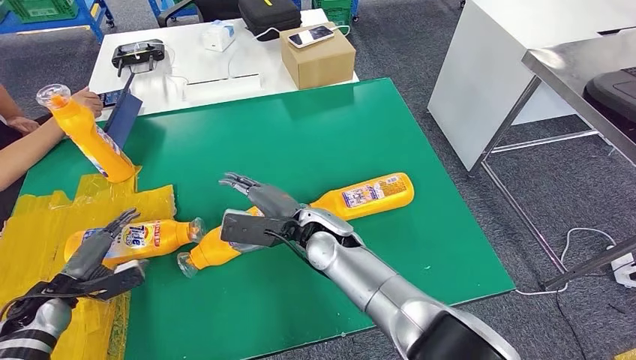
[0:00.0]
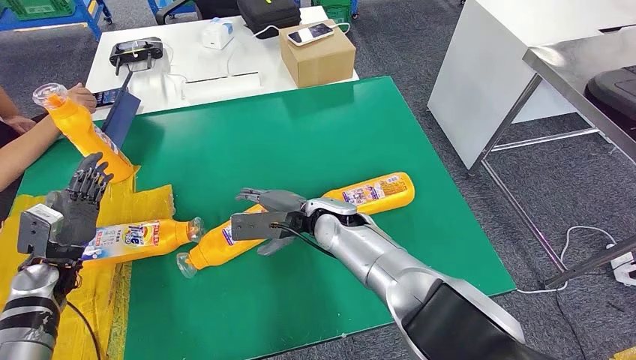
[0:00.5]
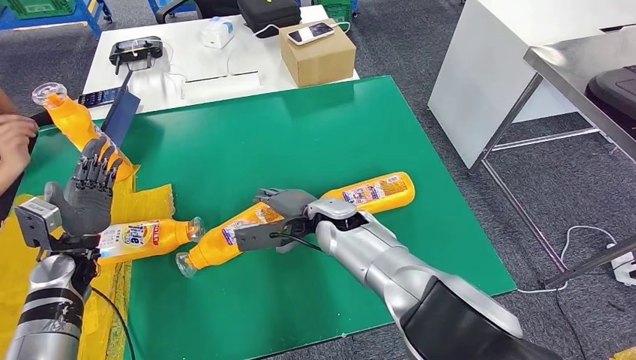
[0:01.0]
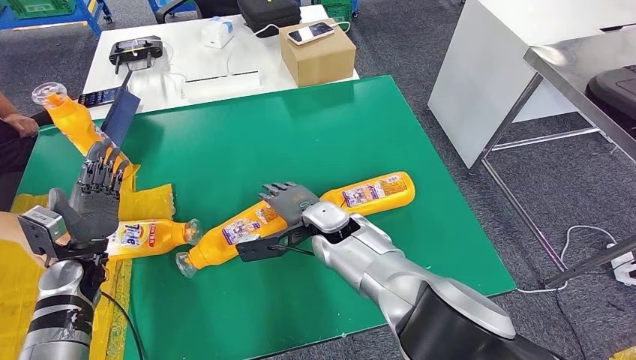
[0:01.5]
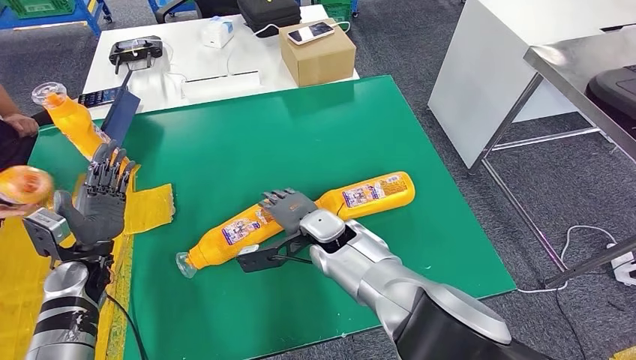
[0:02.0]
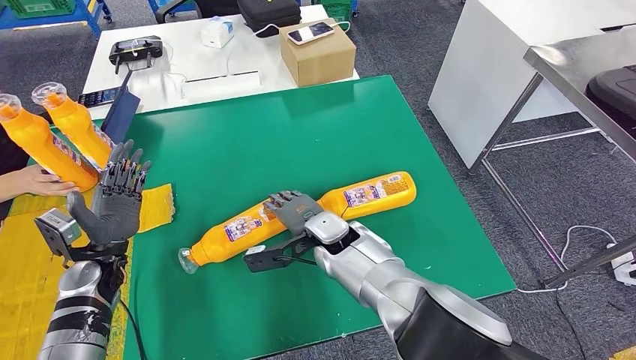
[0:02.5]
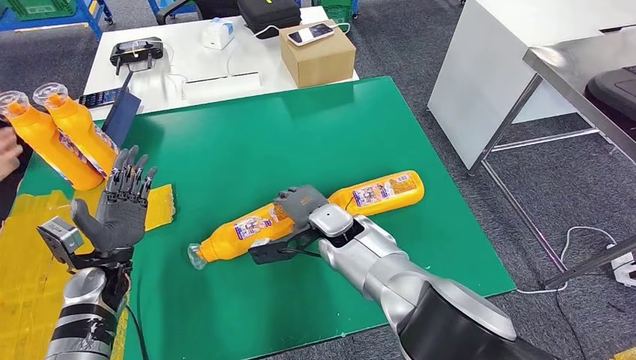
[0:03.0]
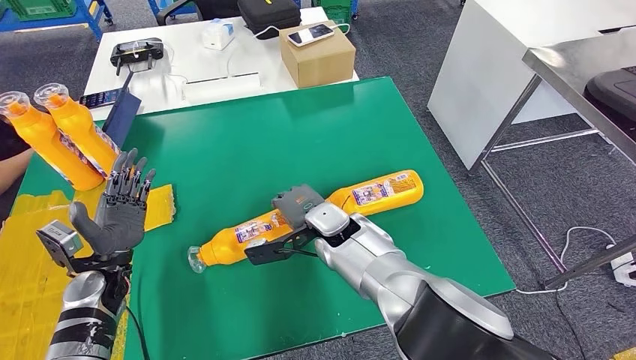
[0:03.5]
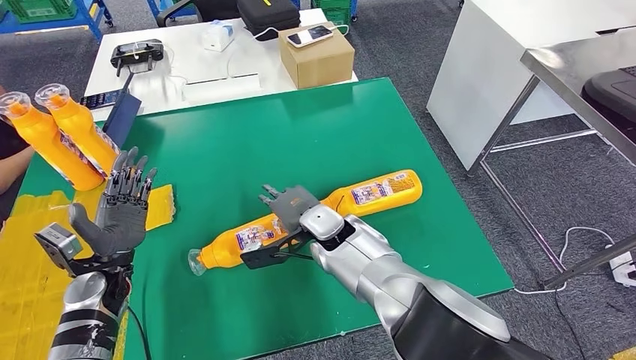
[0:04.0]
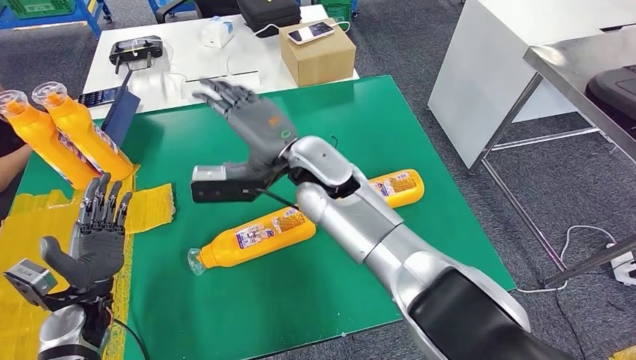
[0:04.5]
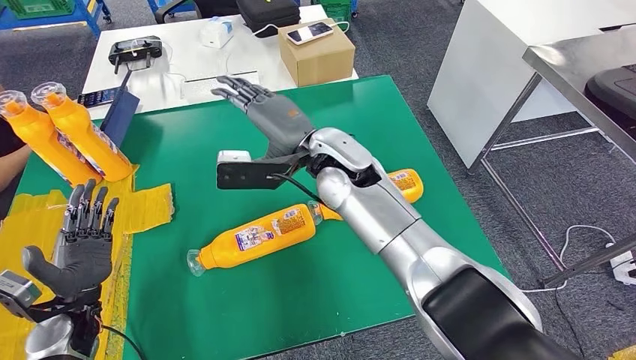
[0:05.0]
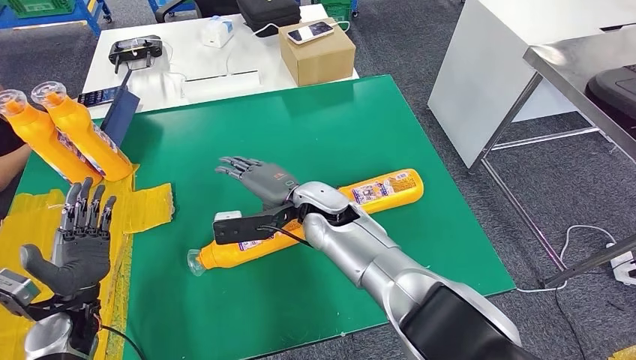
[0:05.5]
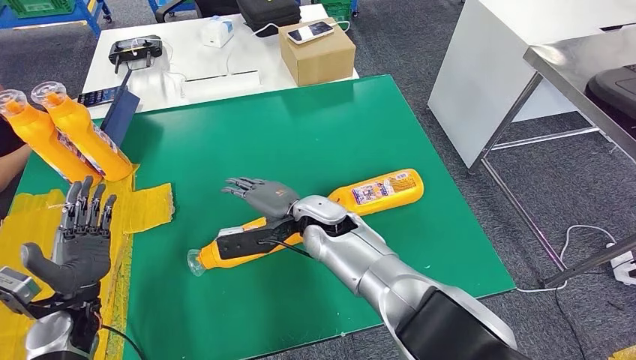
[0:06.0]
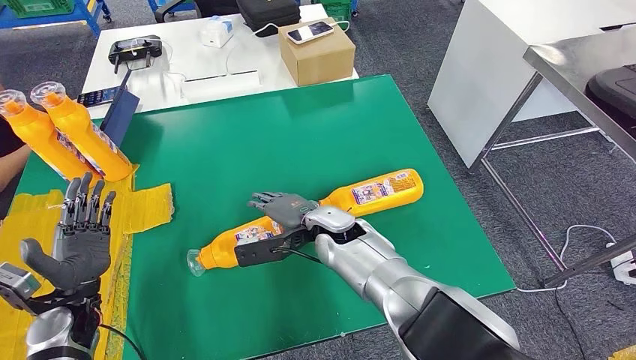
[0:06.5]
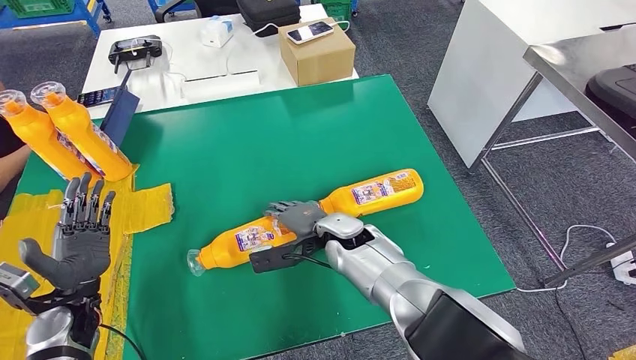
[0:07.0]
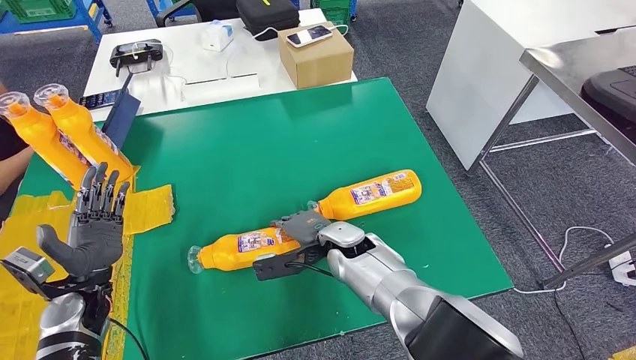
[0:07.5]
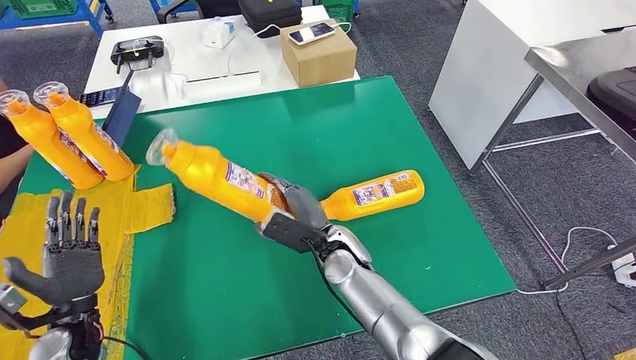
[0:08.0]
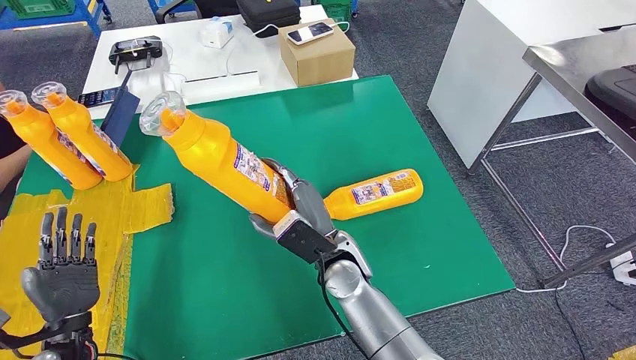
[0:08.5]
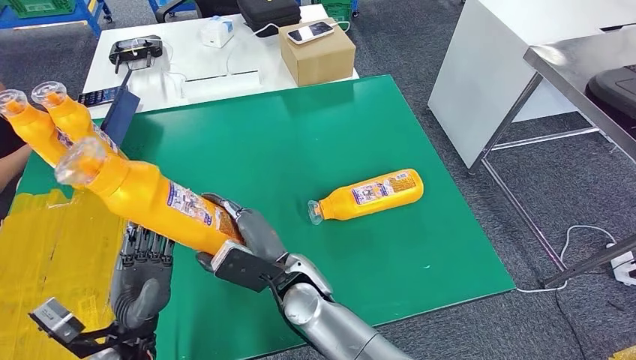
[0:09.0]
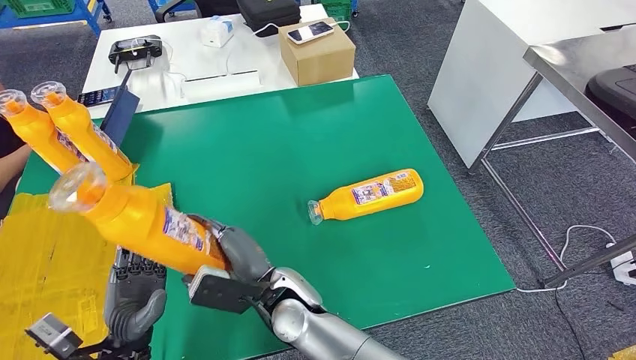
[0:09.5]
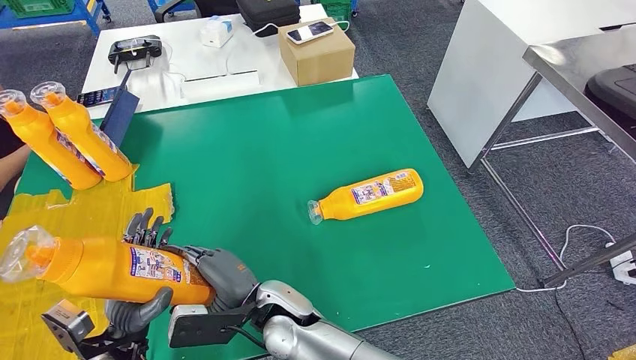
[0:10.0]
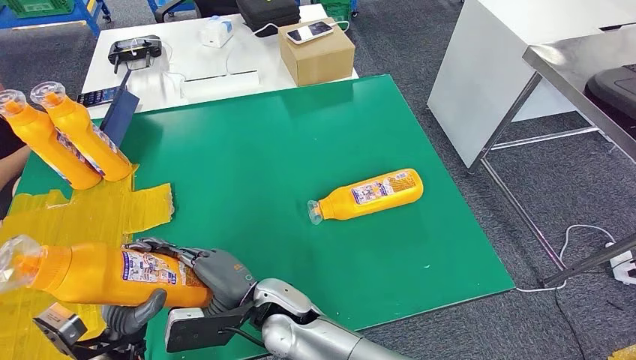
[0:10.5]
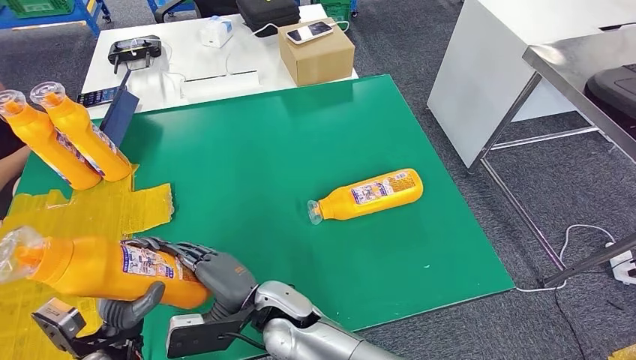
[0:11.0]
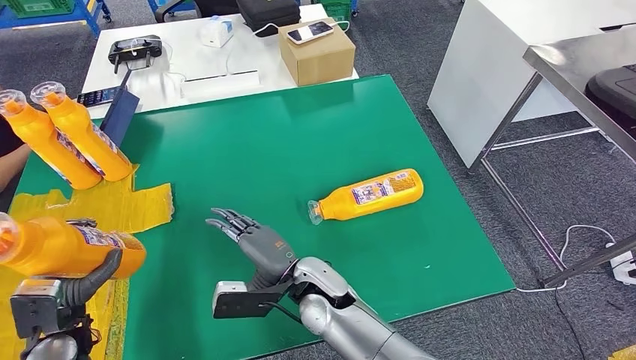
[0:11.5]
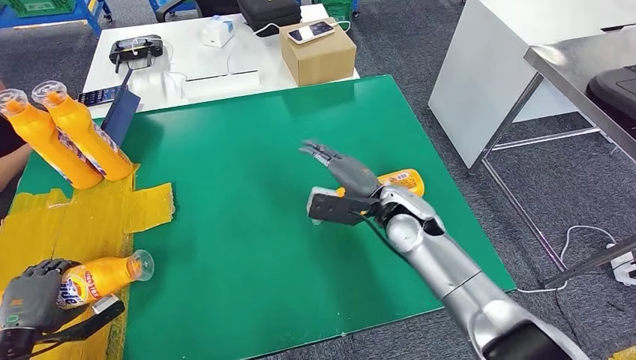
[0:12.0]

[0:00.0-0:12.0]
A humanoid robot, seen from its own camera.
Step, 0:06.0 to 0:10.5: Pick up the fast-moving consumer goods bottle from the table.

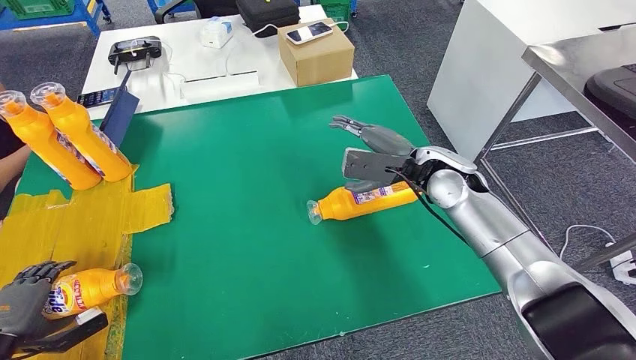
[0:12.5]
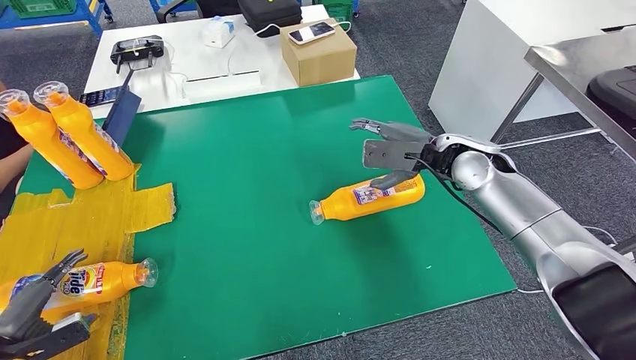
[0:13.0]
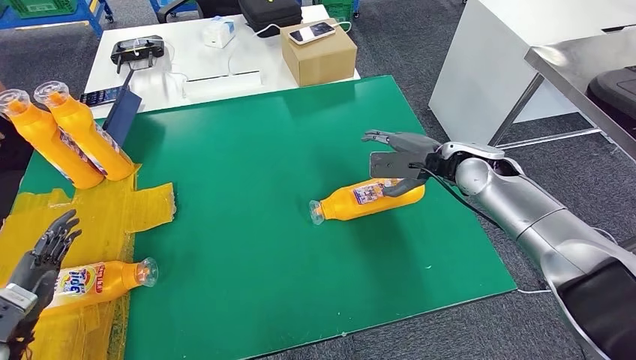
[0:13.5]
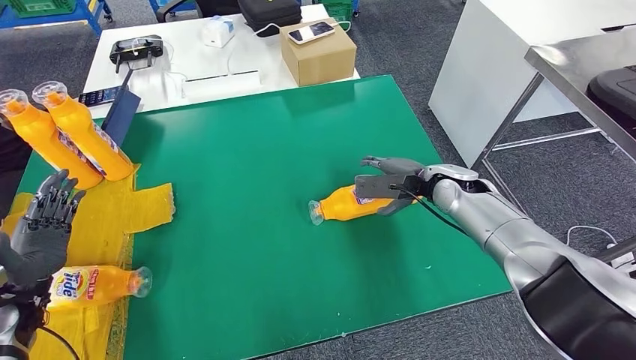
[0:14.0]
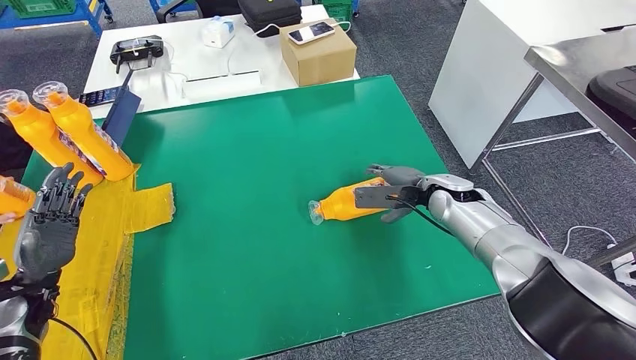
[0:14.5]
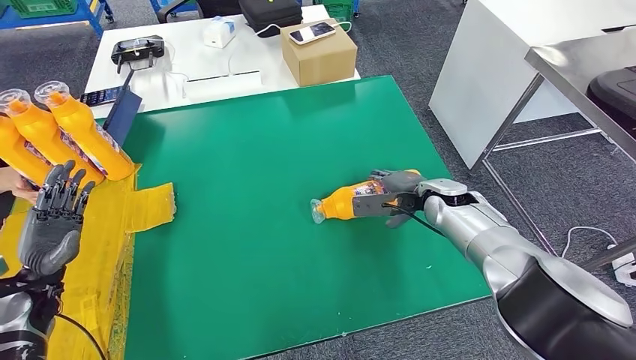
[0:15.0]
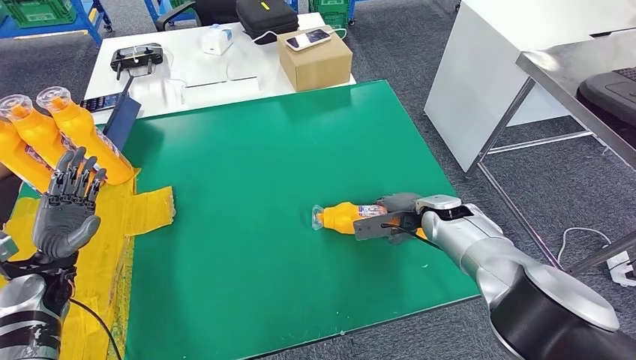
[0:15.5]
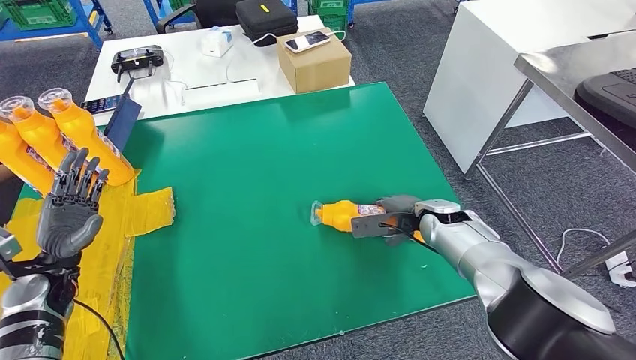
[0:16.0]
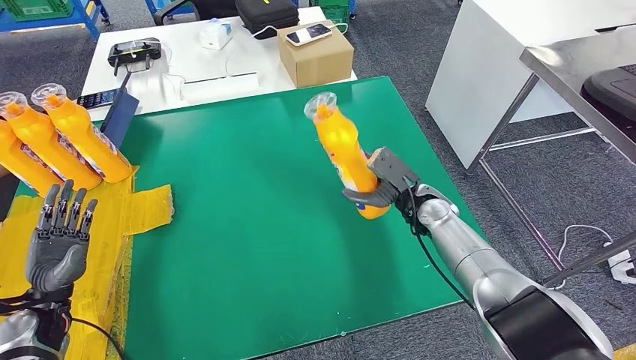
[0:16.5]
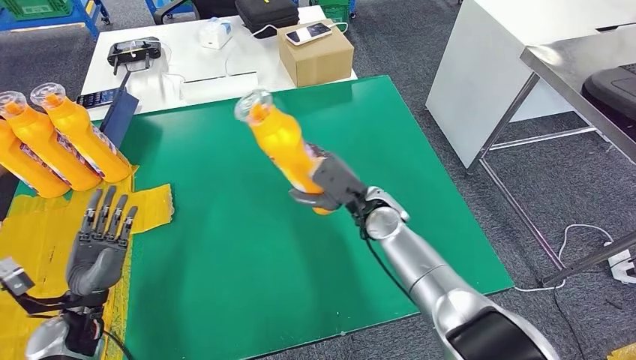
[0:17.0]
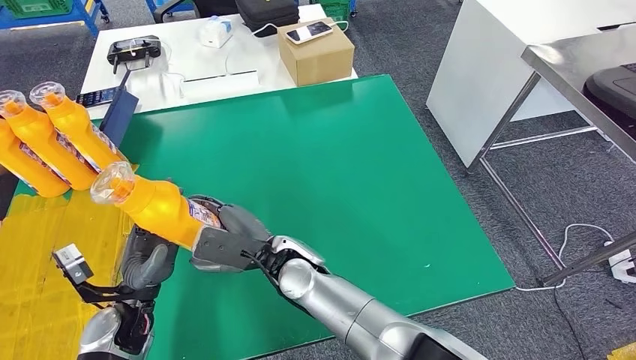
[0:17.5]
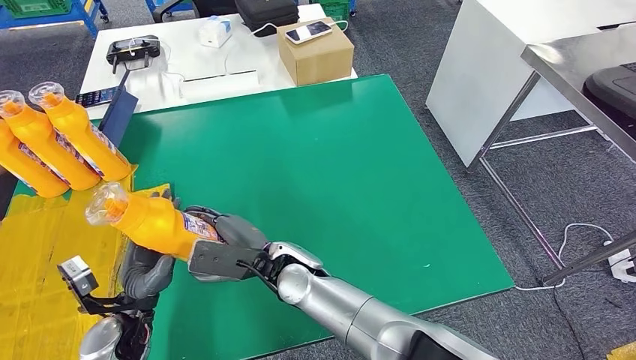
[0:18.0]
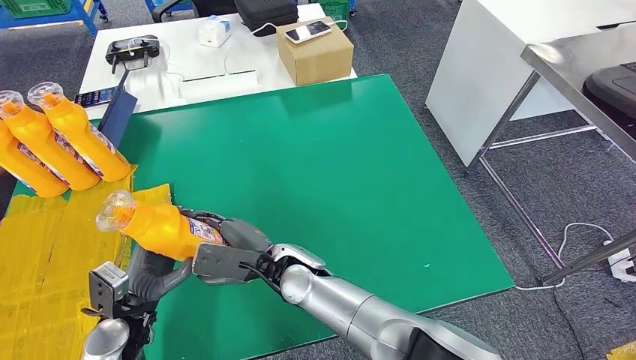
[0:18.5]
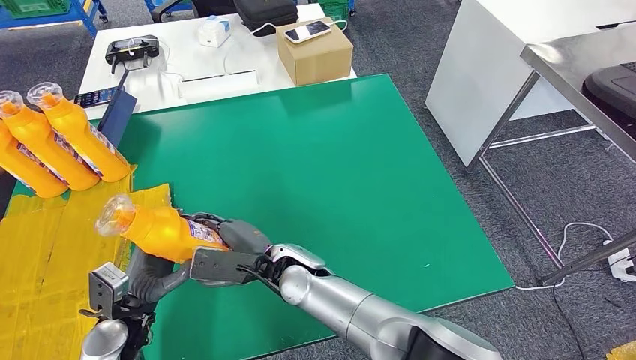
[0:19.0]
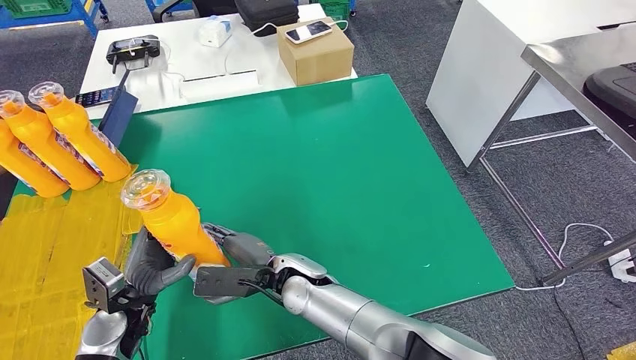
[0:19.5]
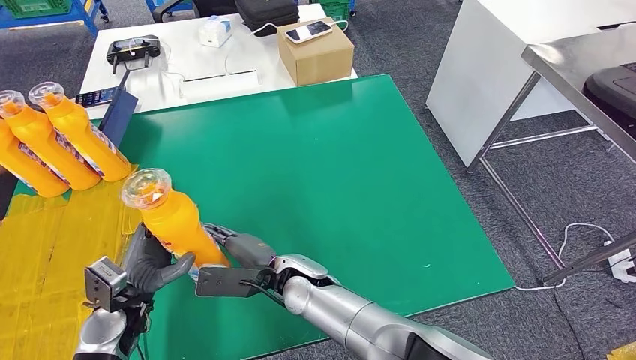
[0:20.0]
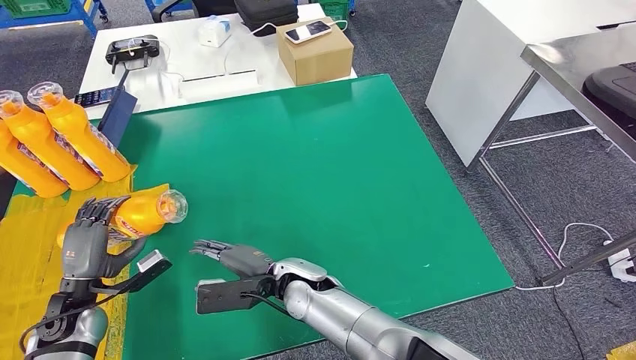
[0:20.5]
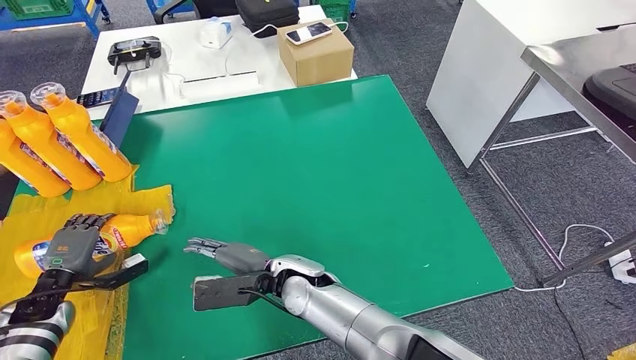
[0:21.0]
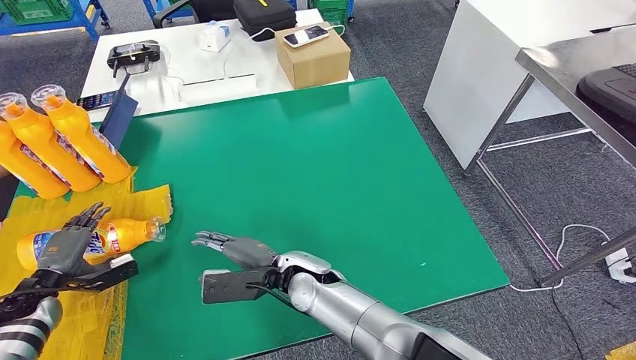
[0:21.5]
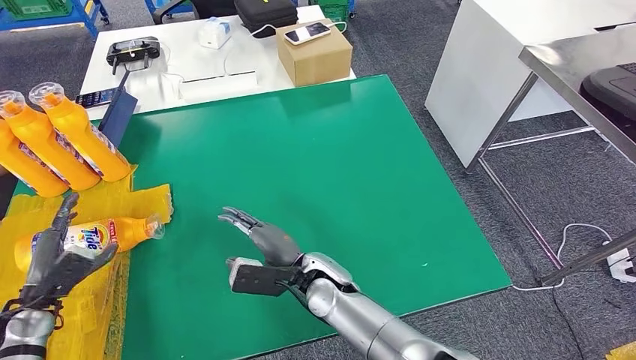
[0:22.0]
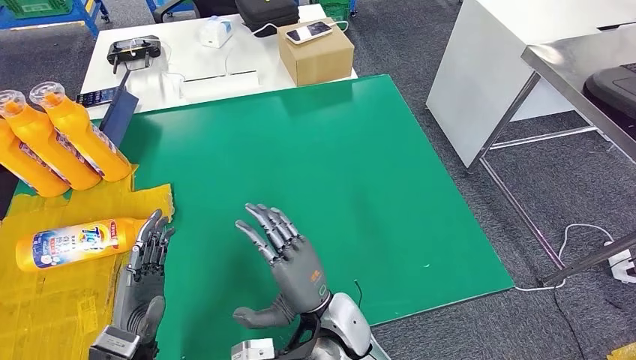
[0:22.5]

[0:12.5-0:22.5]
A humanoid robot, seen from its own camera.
Step, 0:12.5 to 0:14.5: Flip the fast-moving consumer goods bottle to the front side.
Step, 0:15.0 to 0:18.0: Pick up the fast-moving consumer goods bottle from the table.
Step, 0:18.5 to 0:22.5: Flip the fast-moving consumer goods bottle to the front side.
0:12.5 to 0:14.5: The right hand shifts roughly 10 cm downward. The left hand travels forward, to the right and upward by roughly 15 cm.
0:18.5 to 0:20.5: The left hand travels to the left by some 10 cm.
0:20.5 to 0:22.5: The left hand moves to the right and backward, about 15 cm, while the right hand travels backward and to the right by about 10 cm.
